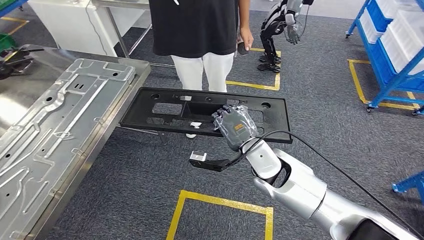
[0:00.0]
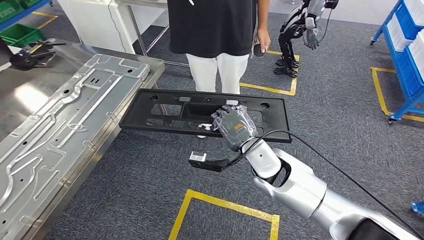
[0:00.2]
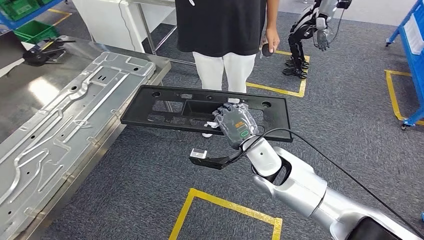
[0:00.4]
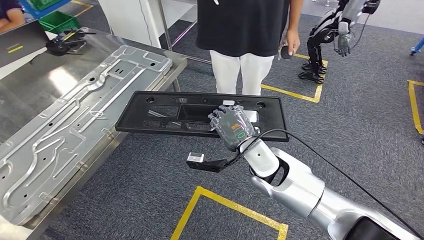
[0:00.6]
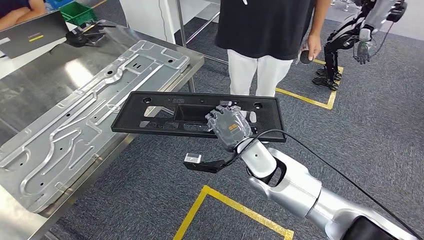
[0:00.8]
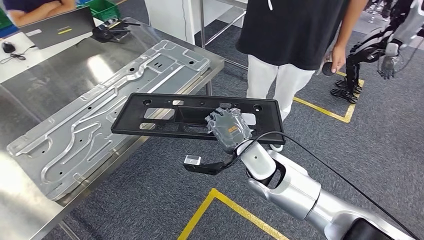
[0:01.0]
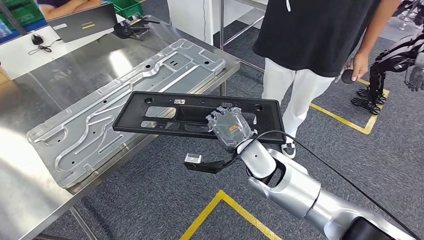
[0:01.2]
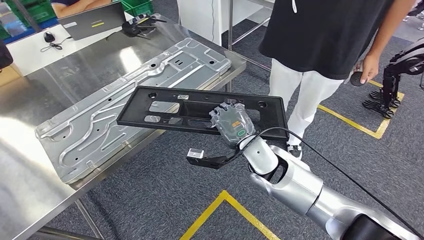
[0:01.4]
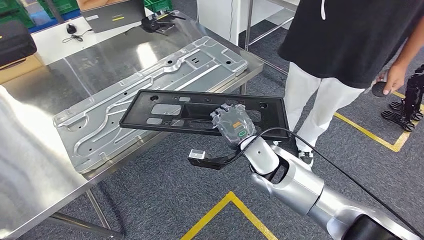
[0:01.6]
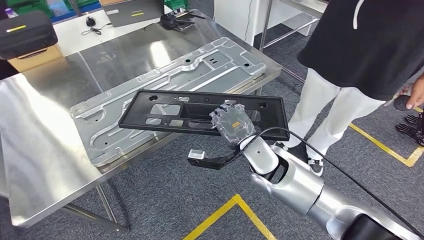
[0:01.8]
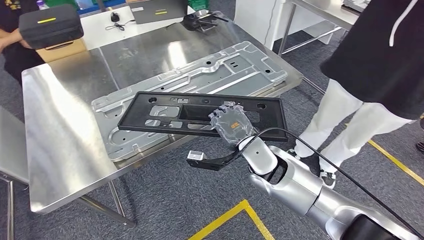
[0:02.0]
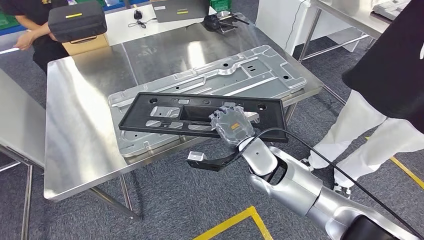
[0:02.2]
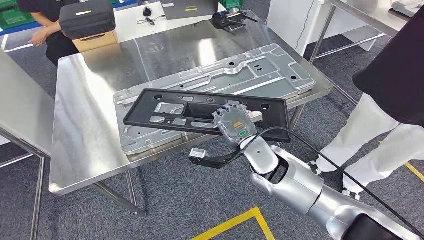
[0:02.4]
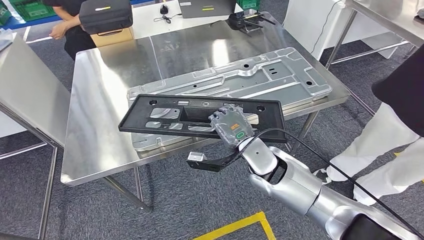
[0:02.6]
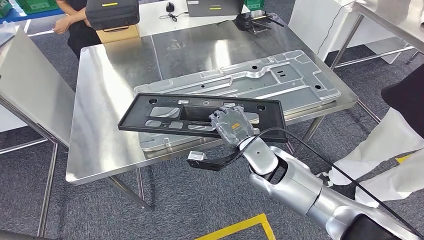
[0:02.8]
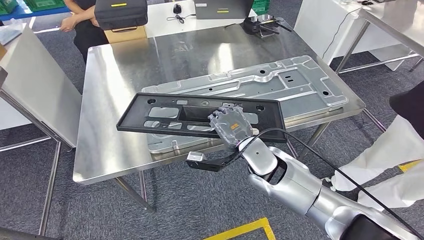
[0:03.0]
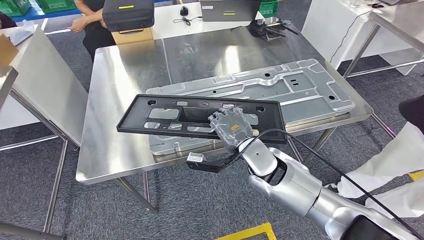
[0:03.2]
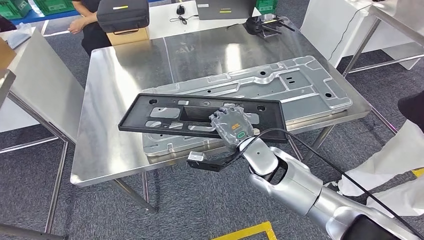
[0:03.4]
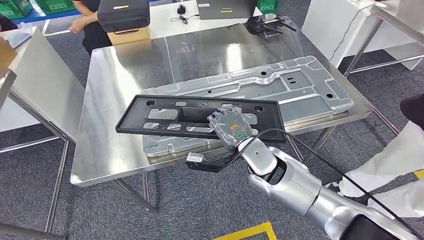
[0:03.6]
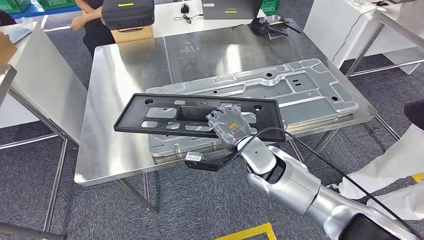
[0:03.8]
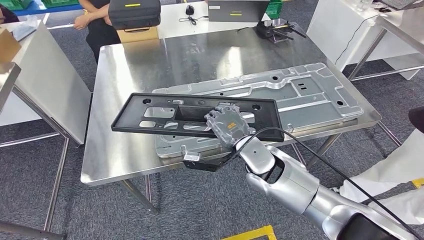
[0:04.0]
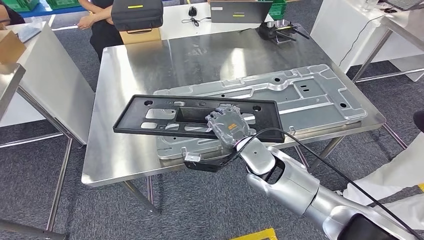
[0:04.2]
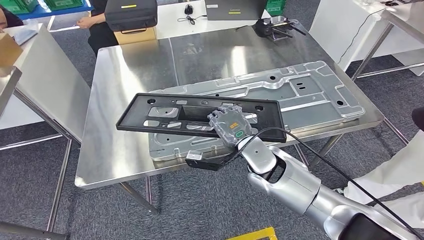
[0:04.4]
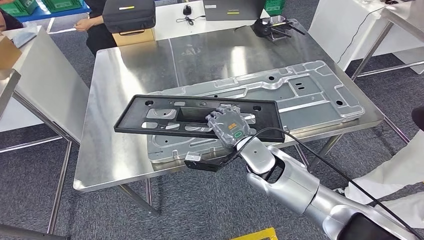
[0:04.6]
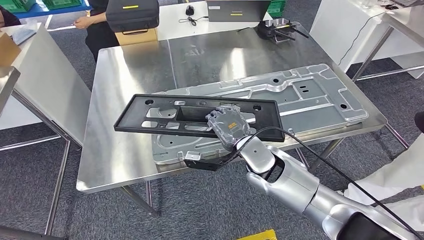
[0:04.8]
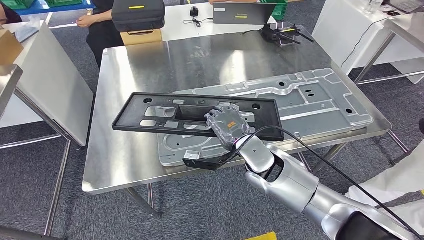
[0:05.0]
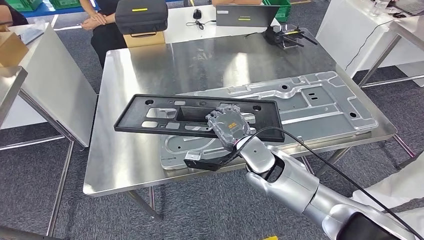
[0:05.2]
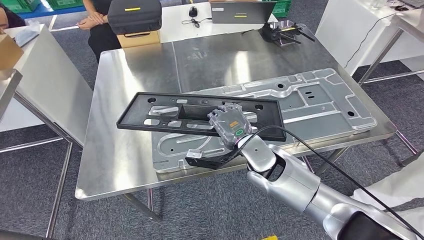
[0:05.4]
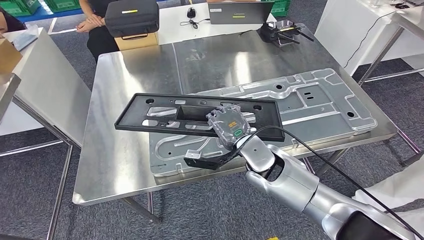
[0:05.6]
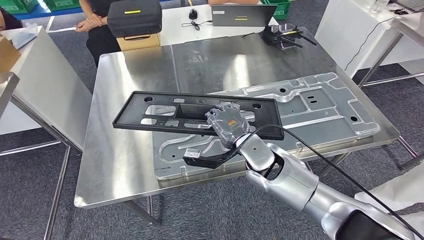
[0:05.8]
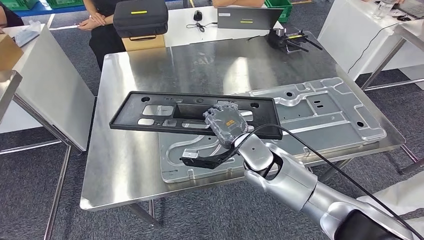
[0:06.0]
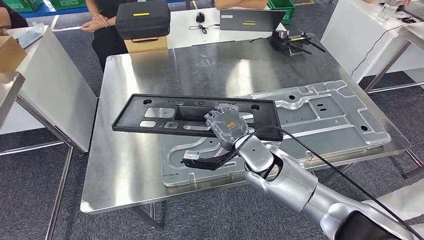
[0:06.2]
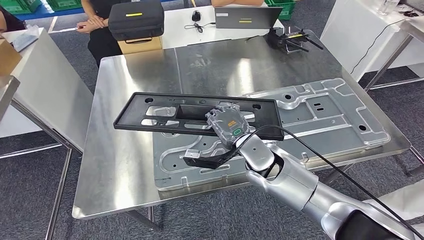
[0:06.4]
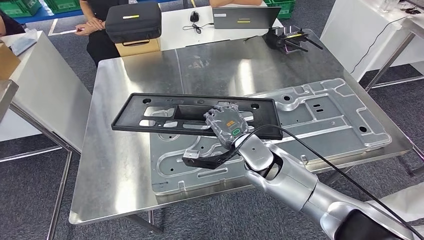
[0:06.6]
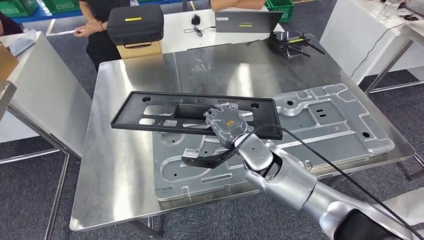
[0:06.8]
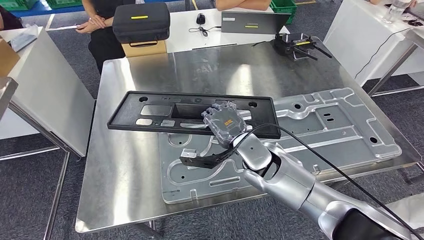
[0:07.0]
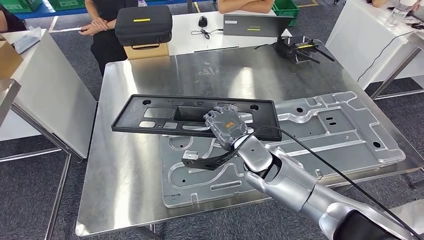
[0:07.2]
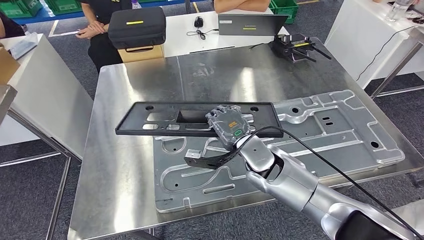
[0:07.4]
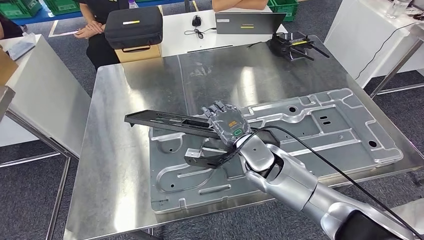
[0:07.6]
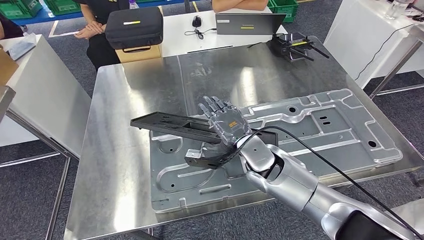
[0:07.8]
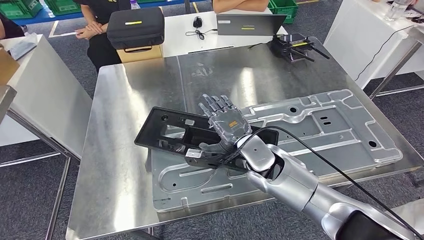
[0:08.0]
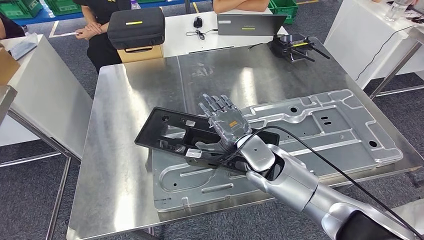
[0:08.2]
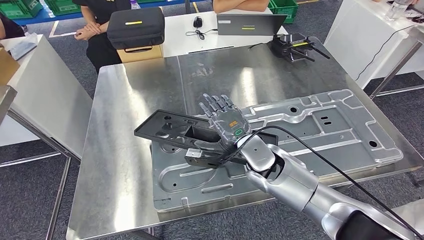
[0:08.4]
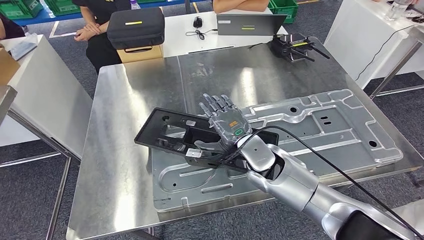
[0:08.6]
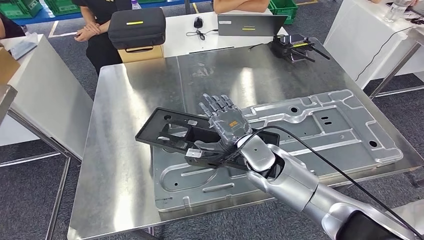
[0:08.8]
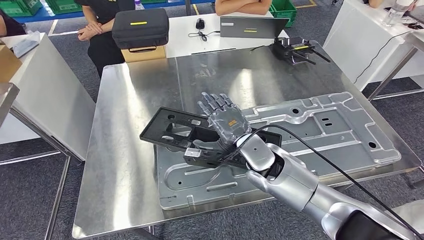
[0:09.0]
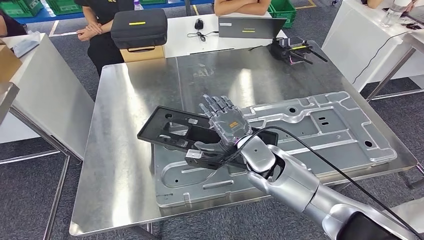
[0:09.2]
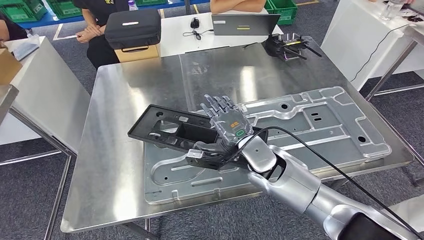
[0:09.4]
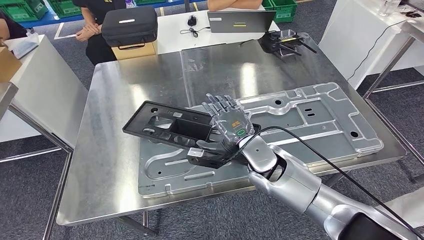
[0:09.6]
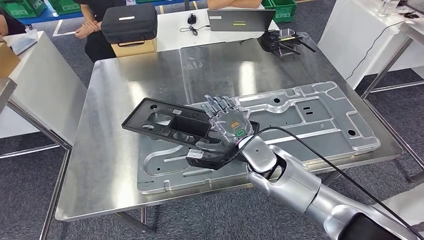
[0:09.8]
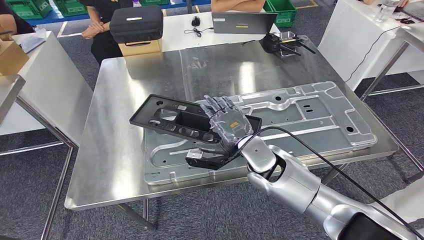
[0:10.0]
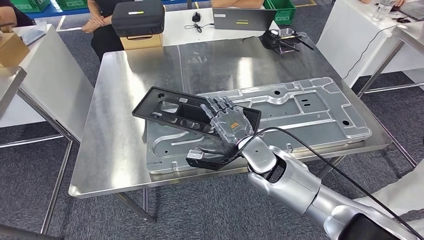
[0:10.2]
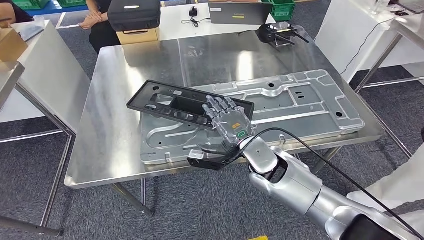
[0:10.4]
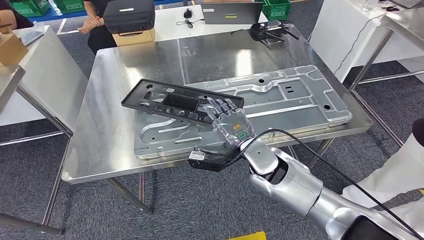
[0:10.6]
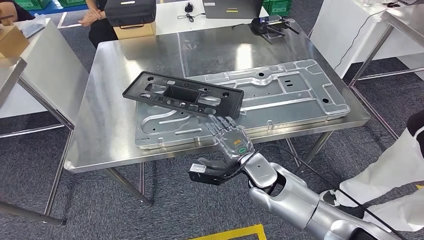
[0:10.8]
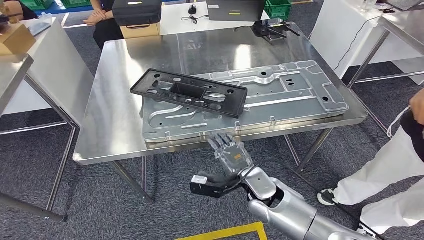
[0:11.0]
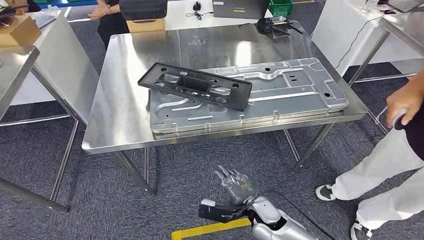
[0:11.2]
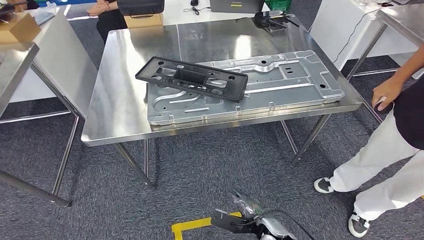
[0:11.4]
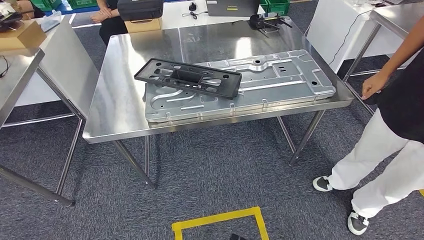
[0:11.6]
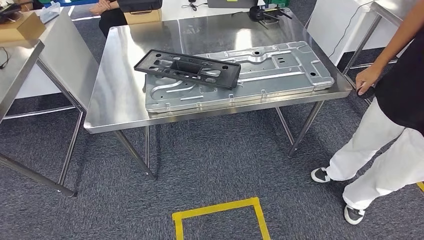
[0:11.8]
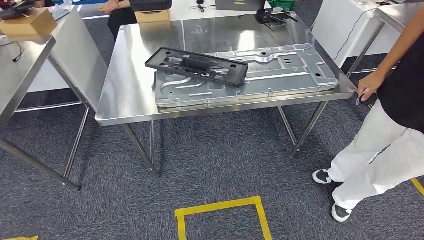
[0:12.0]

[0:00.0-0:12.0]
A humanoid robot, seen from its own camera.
Step, 0:00.0 to 0:04.0: Move the large material to the workbench.
Step, 0:04.2 to 0:08.6: Insert the large material into the corresponding slot on the workbench.

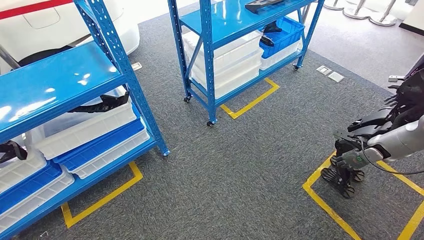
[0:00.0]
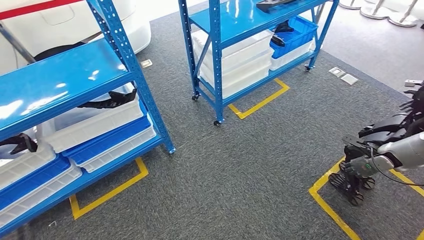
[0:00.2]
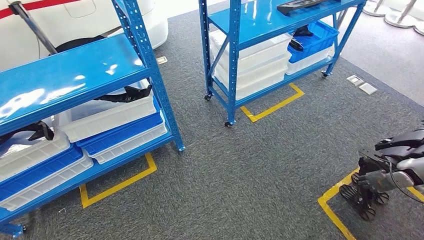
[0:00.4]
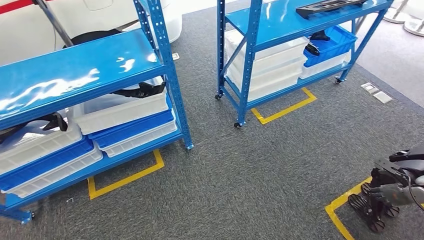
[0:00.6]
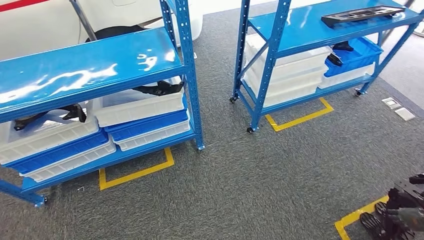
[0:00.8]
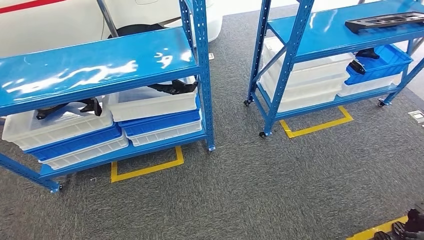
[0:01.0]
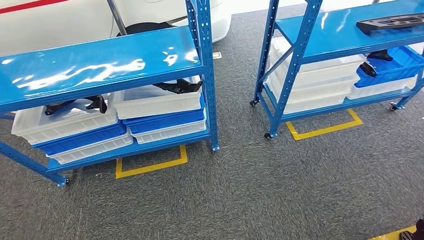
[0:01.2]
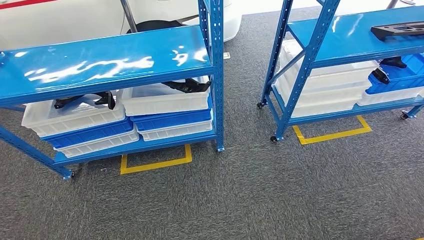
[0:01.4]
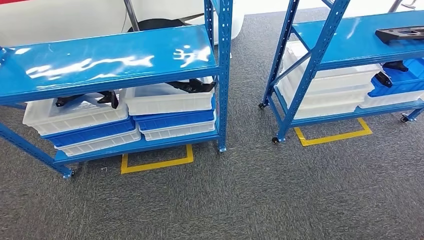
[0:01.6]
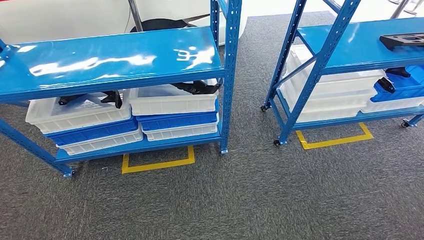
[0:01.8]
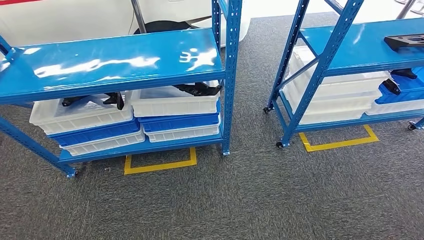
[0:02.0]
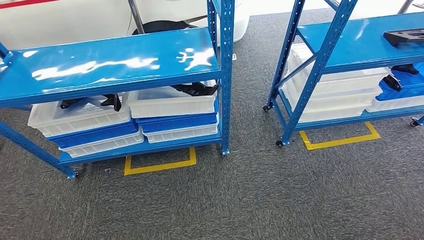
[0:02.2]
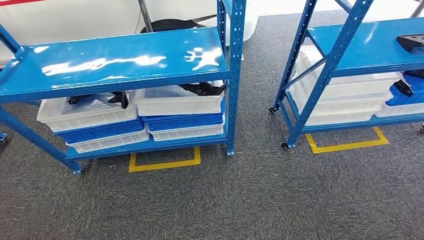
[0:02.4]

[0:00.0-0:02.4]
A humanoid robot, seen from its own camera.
Step, 0:00.0 to 0:02.2: Move to the initial position of the shelf.
